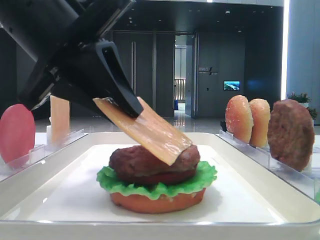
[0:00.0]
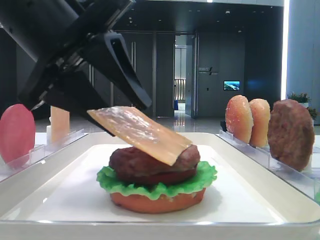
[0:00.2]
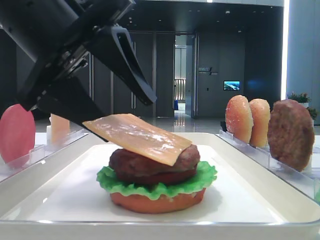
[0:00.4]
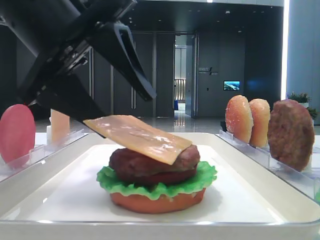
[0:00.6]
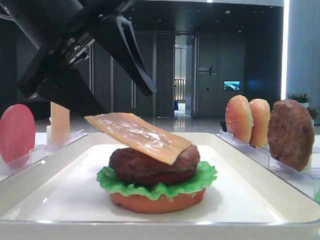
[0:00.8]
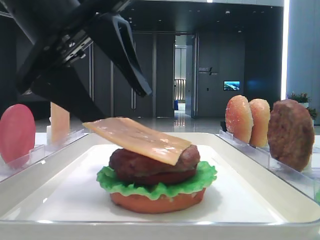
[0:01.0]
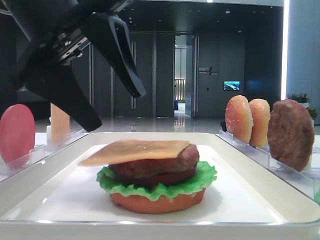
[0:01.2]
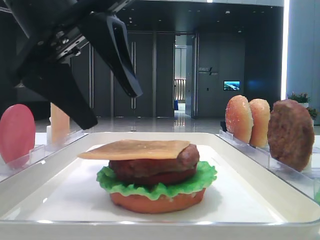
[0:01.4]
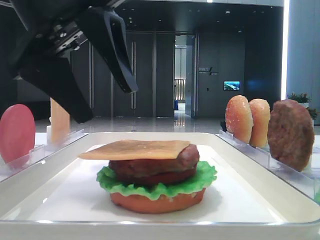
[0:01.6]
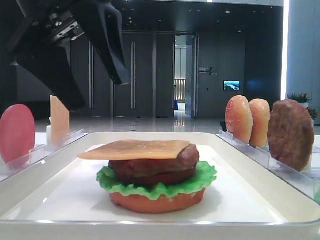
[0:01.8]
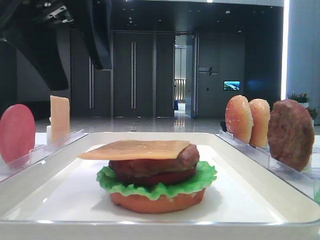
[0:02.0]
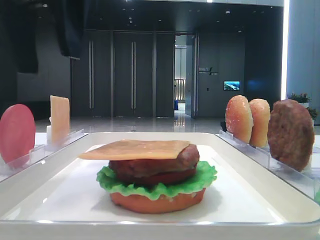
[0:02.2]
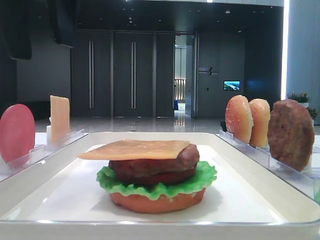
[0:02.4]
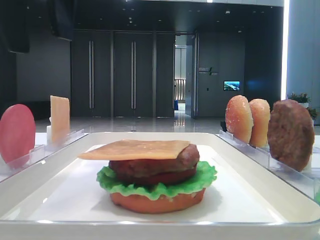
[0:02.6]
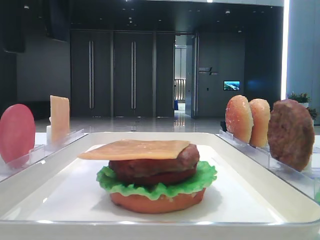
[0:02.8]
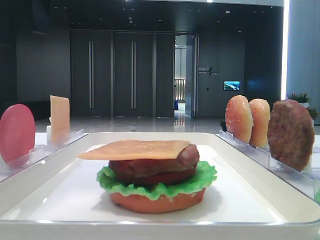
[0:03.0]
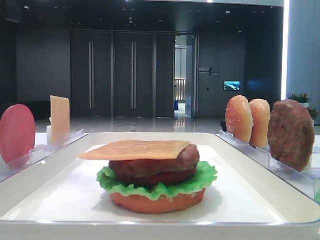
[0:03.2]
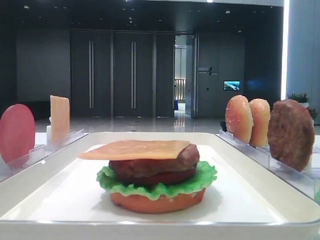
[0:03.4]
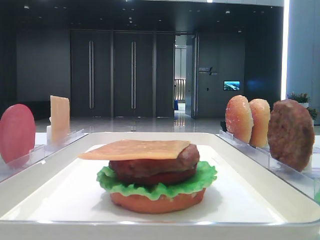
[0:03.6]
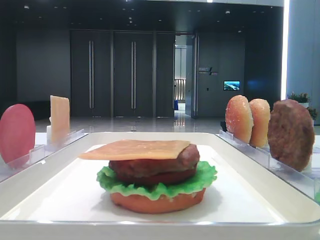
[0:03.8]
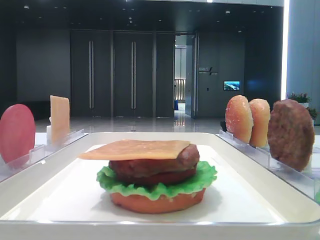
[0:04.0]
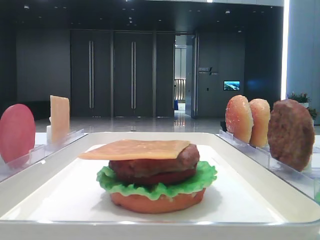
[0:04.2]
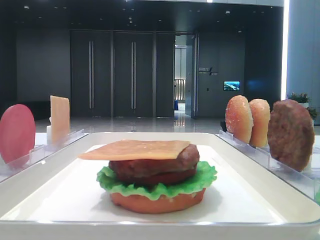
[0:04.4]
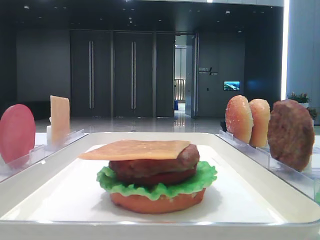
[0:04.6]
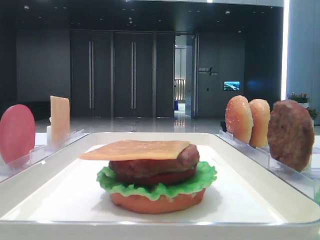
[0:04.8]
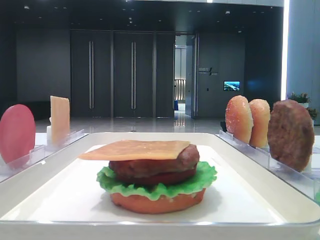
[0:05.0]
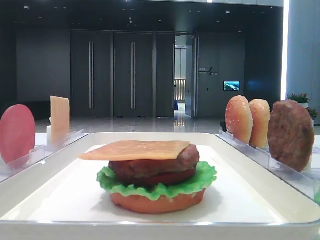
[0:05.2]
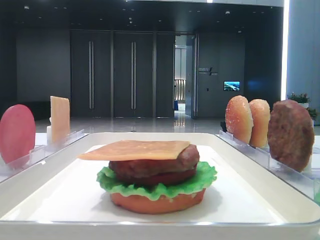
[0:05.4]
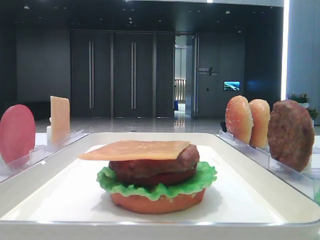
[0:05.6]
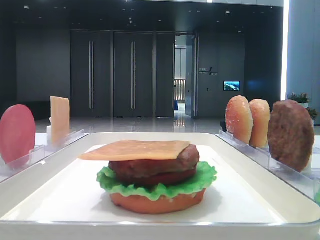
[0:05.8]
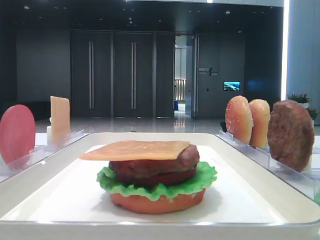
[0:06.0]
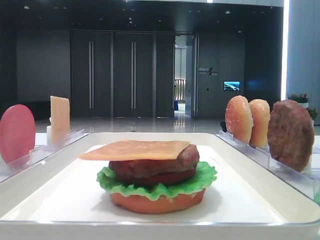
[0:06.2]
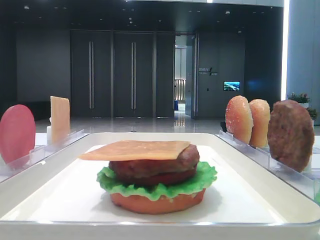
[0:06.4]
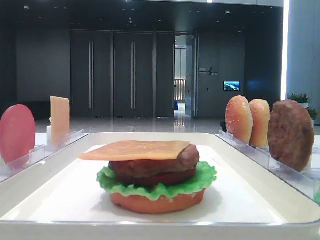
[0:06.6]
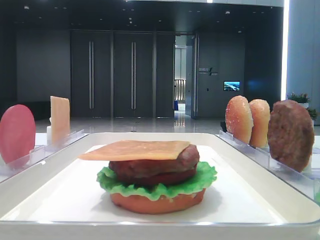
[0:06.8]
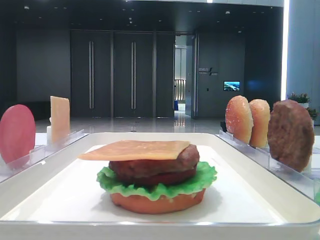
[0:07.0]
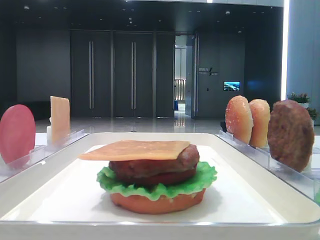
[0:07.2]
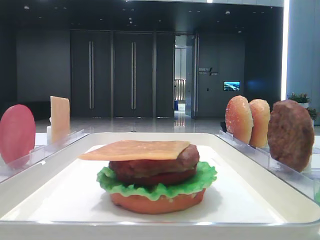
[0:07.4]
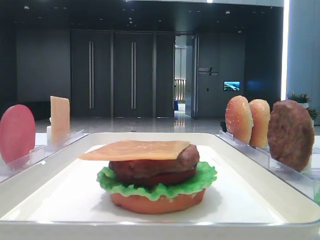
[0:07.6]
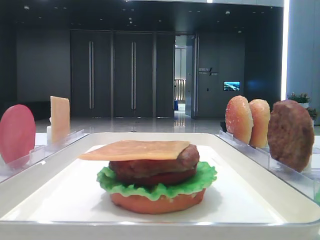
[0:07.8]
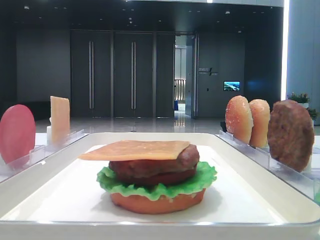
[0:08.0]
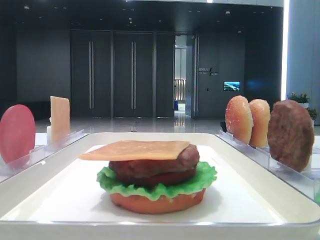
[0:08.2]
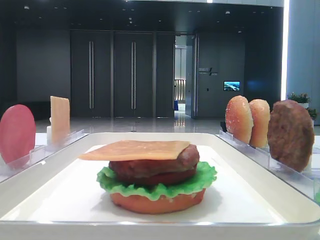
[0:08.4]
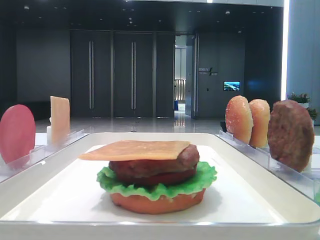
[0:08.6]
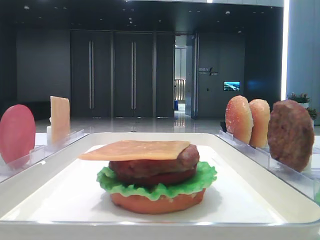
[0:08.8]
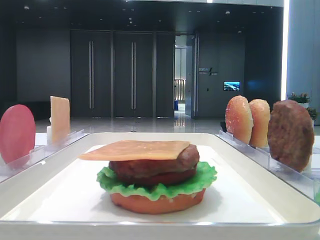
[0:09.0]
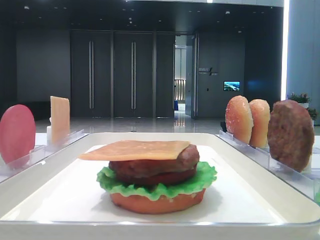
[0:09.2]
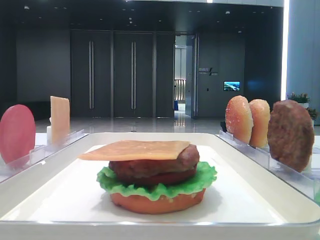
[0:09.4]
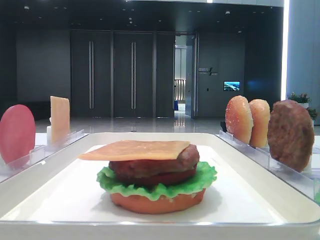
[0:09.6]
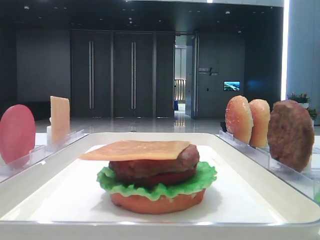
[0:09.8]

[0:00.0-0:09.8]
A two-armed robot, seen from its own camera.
0:00.0 to 0:01.4: The left gripper opens up.
0:01.4 to 0:02.8: The left gripper heads upward, covering some 10 cm.
0:02.8 to 0:04.2: The left gripper heads to the left, covering approximately 15 cm.

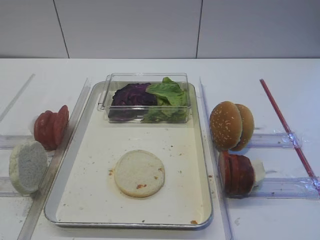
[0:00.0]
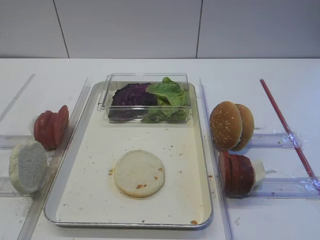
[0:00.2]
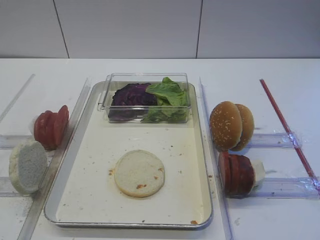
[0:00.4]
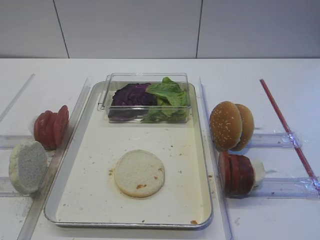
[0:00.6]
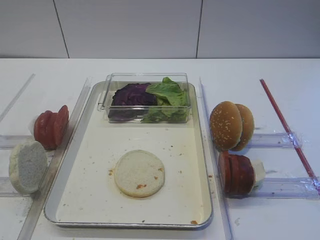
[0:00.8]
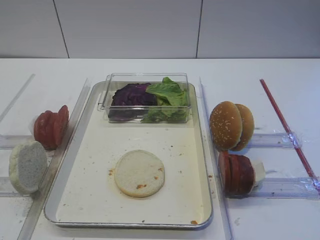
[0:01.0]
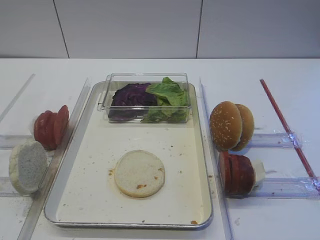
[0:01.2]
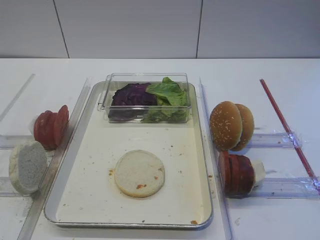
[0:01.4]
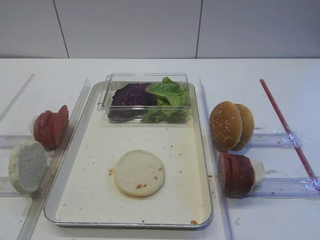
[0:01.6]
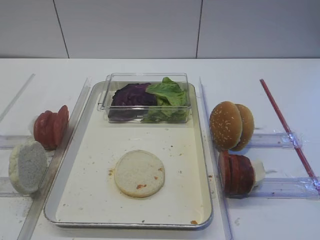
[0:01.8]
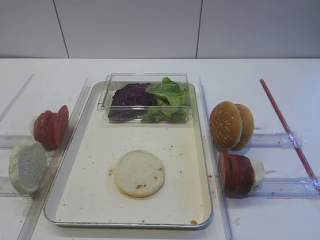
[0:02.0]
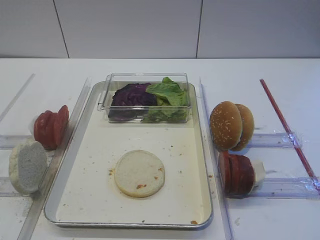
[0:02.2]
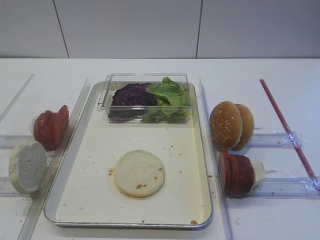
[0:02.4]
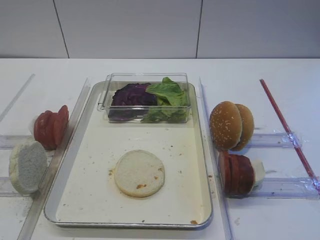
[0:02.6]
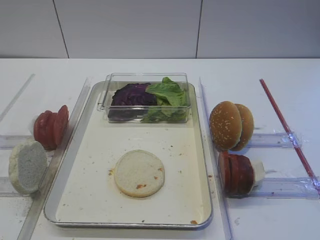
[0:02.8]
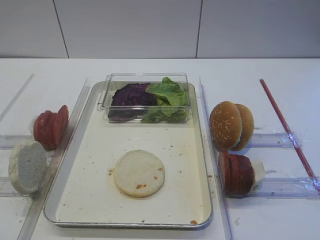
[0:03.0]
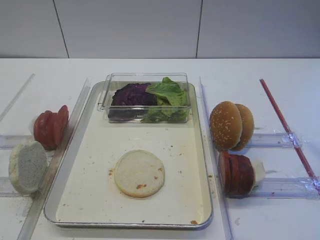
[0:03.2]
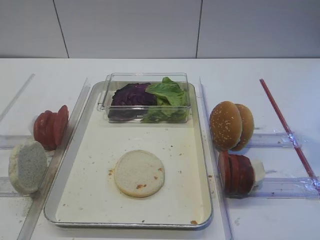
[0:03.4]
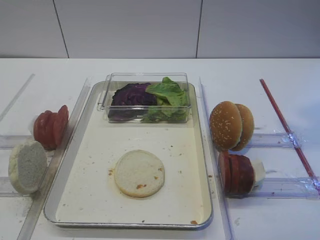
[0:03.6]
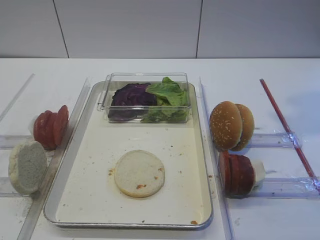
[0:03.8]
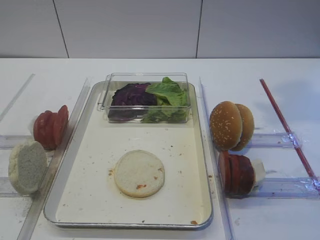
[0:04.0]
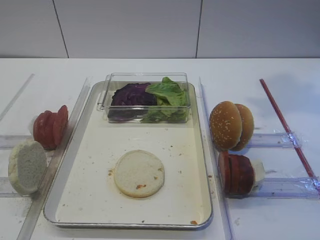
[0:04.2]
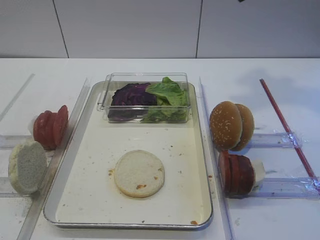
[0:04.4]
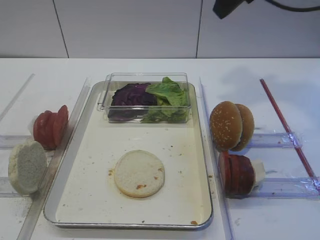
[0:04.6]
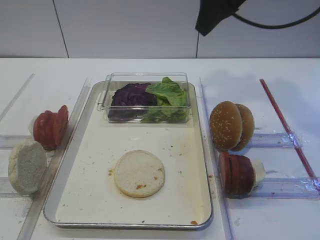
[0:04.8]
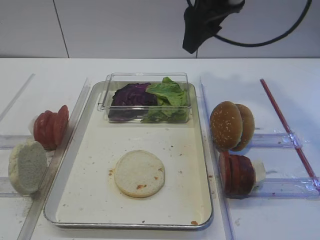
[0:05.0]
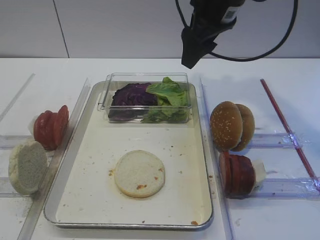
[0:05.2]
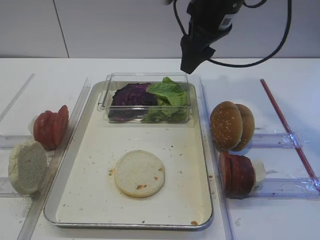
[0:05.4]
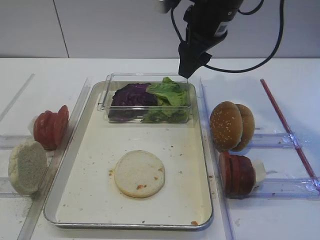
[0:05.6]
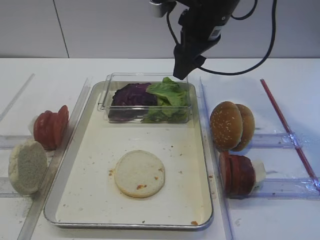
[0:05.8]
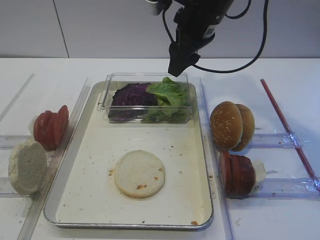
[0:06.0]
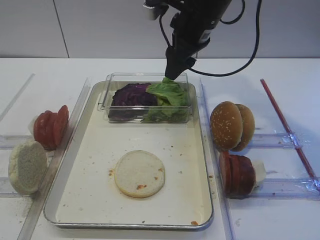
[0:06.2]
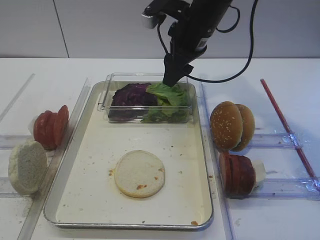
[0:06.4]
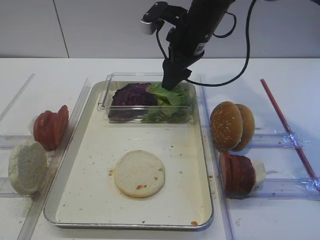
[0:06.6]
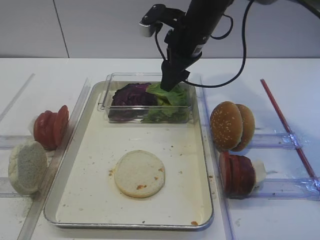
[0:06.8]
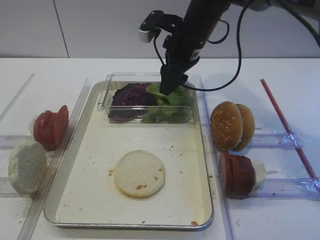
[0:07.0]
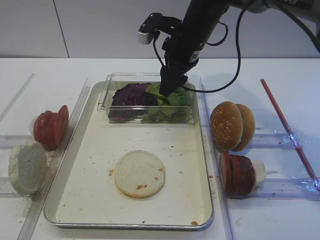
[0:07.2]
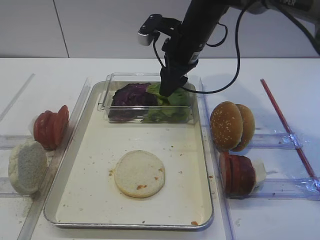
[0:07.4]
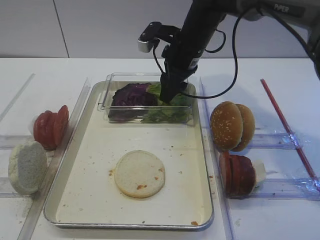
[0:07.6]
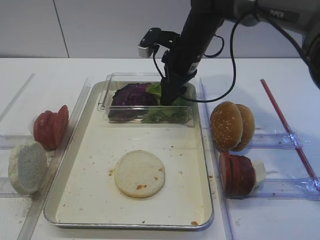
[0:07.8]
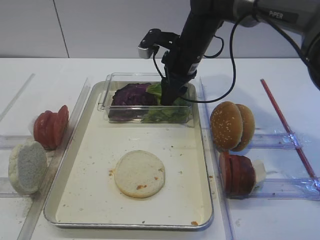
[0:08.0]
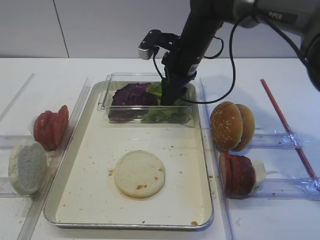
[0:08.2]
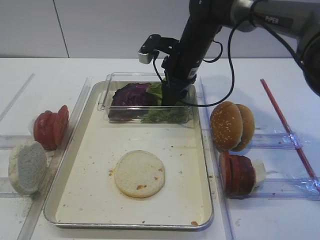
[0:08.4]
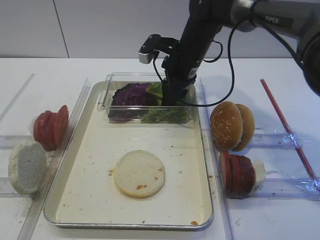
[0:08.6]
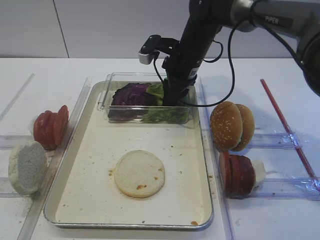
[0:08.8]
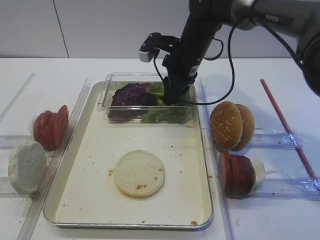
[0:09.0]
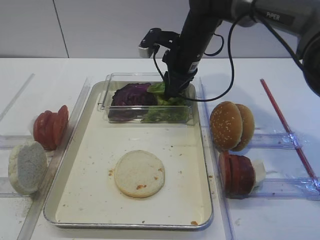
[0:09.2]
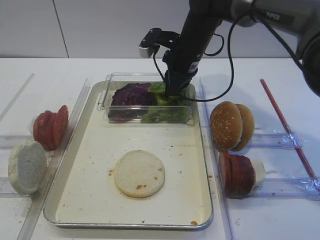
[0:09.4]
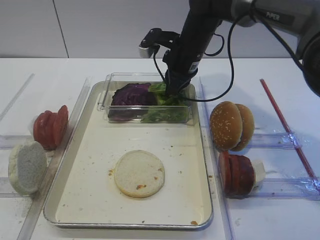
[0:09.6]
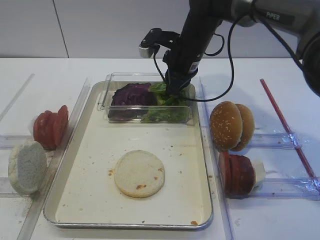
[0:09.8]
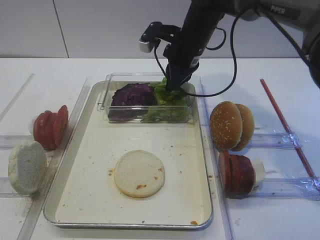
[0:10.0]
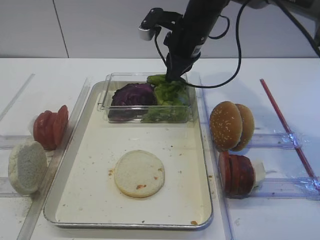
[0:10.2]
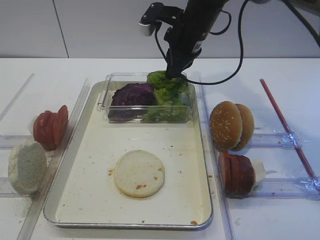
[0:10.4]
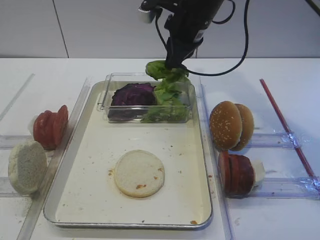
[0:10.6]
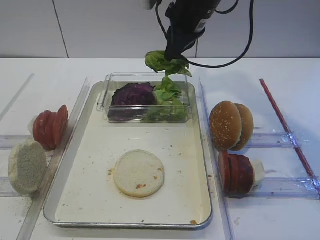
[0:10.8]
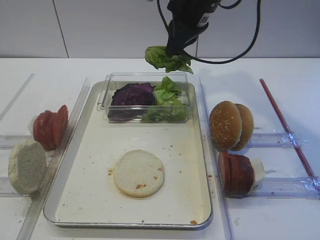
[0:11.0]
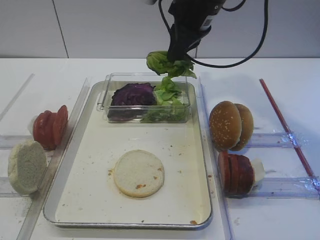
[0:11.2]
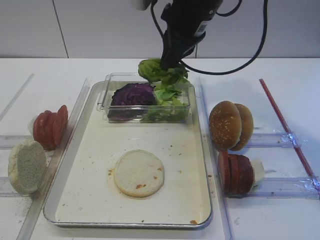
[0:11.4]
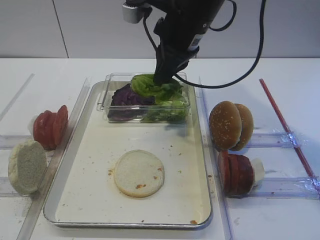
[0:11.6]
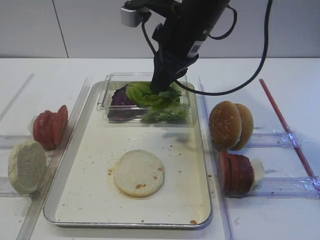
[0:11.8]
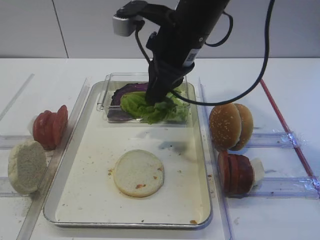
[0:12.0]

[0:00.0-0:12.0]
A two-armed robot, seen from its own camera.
Step, 0:00.0 to 0:11.0: Pick up the lettuce leaf with the right gripper.
0:04.4 to 0:06.0: The right gripper goes about 20 cm downward, to the left and forward.
0:06.0 to 0:07.6: The right gripper heads downward, covering roughly 5 cm.
0:07.6 to 0:09.0: The grippers move only a little.
0:09.0 to 0:10.4: The right gripper shifts approximately 5 cm upward.
0:10.4 to 0:12.0: The right gripper moves backward, roughly 10 cm.

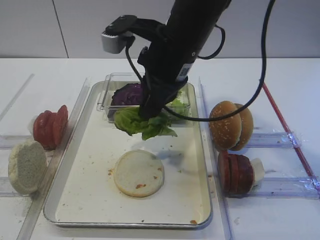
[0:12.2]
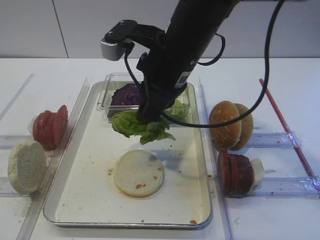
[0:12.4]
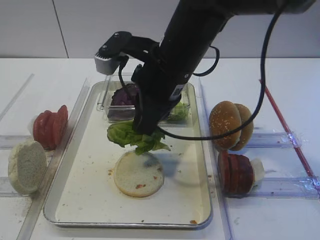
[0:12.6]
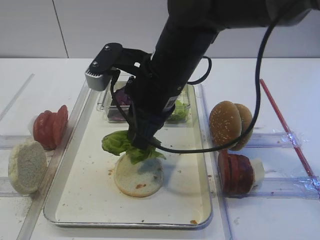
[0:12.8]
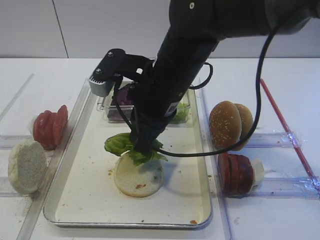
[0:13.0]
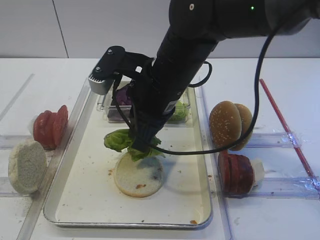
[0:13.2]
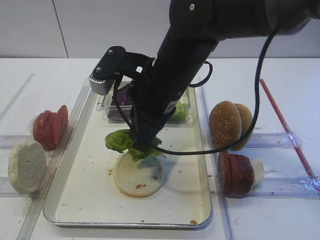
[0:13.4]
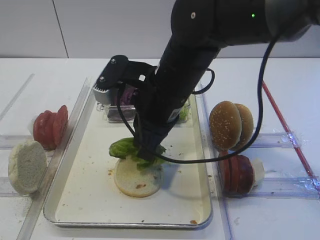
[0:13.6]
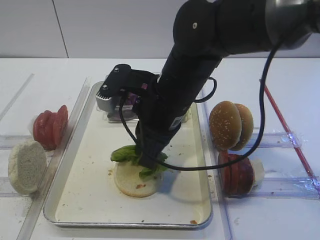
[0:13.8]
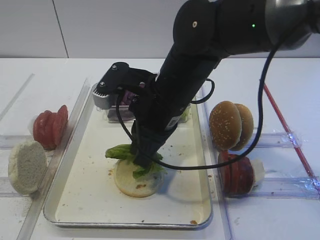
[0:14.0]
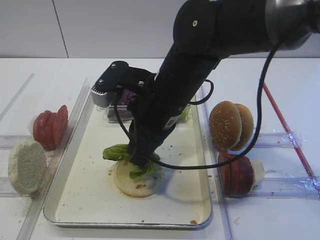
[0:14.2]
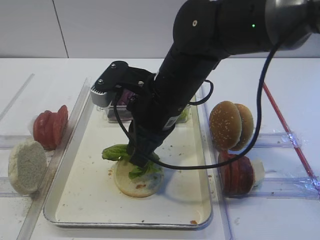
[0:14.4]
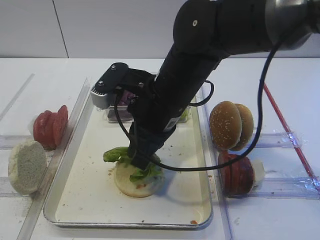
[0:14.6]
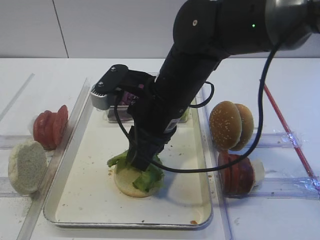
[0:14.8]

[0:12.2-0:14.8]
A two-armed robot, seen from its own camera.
0:12.2 to 0:13.4: The right gripper ends up roughly 5 cm from where it was.
0:13.4 to 0:14.8: The grippers stay close to where they were, moving slightly.
